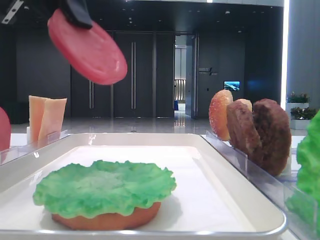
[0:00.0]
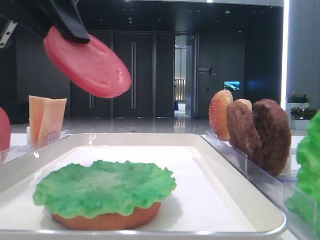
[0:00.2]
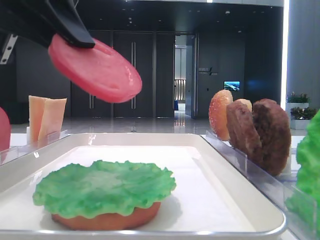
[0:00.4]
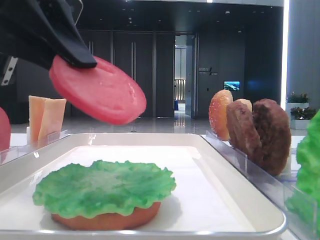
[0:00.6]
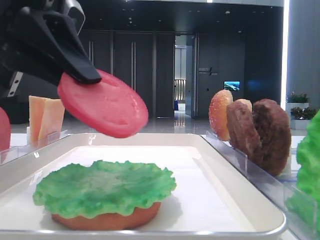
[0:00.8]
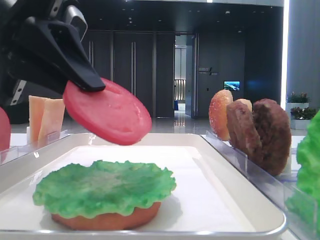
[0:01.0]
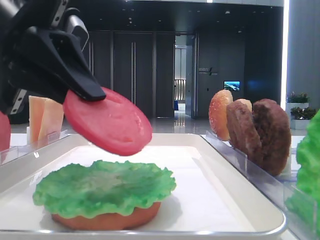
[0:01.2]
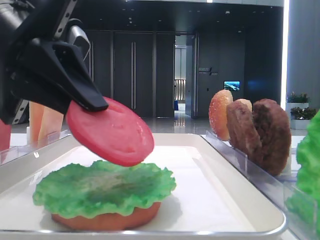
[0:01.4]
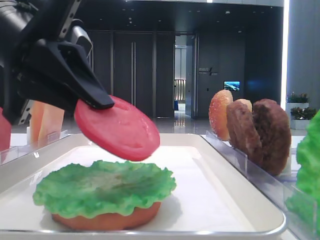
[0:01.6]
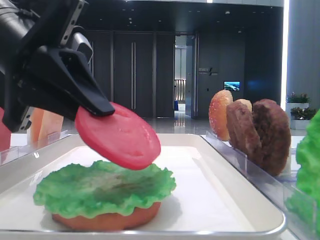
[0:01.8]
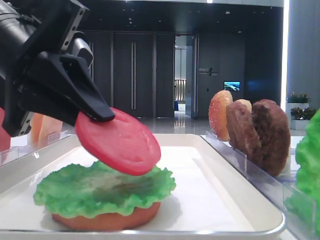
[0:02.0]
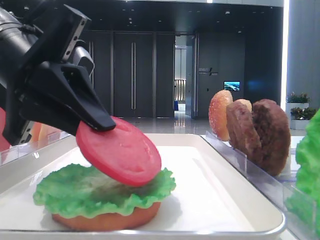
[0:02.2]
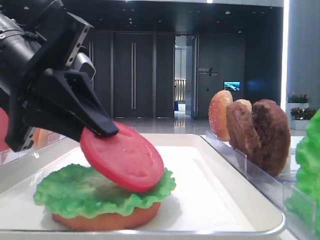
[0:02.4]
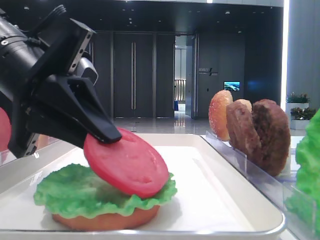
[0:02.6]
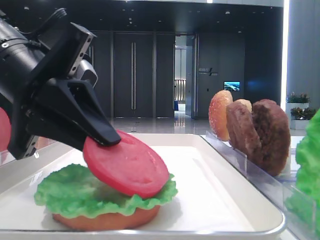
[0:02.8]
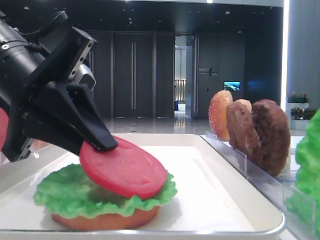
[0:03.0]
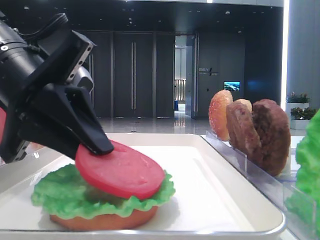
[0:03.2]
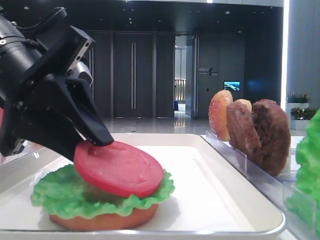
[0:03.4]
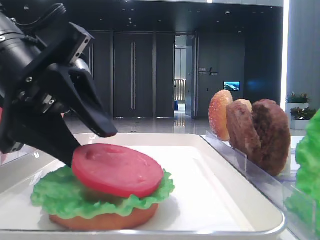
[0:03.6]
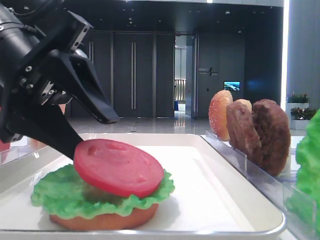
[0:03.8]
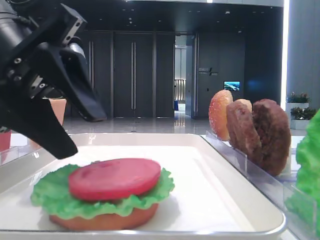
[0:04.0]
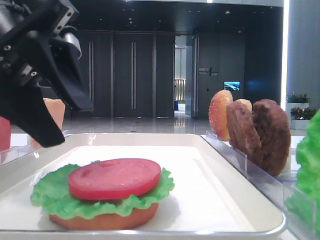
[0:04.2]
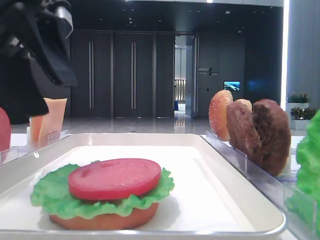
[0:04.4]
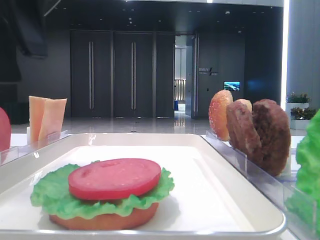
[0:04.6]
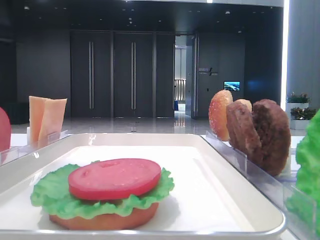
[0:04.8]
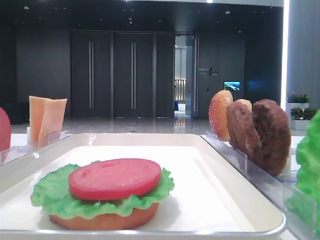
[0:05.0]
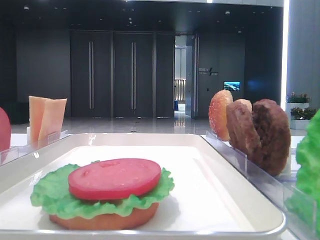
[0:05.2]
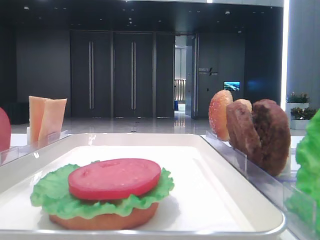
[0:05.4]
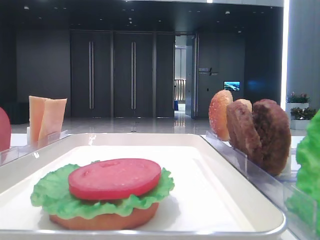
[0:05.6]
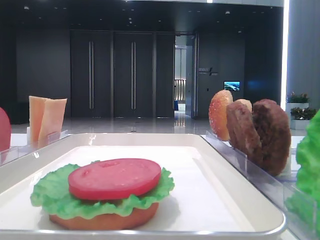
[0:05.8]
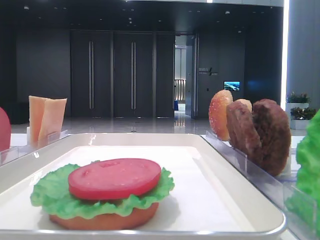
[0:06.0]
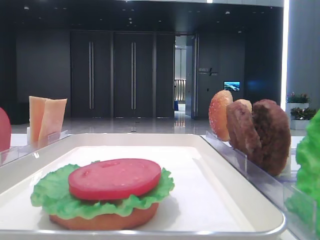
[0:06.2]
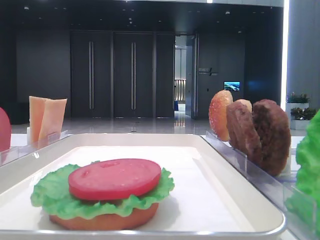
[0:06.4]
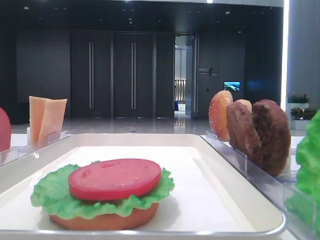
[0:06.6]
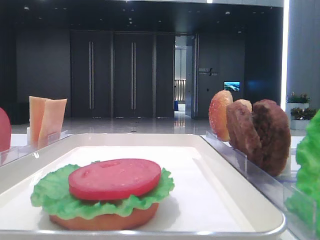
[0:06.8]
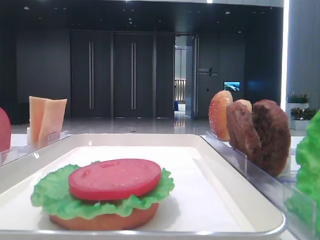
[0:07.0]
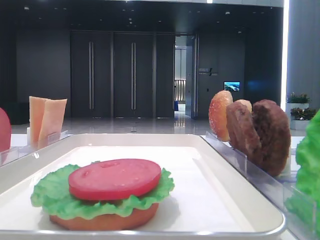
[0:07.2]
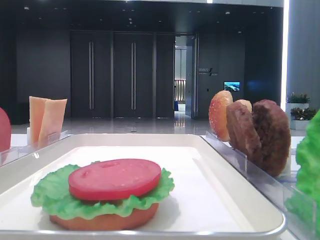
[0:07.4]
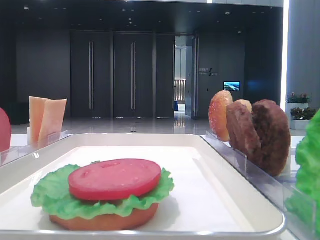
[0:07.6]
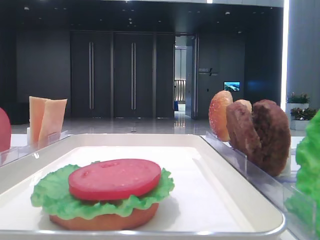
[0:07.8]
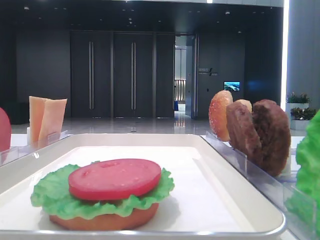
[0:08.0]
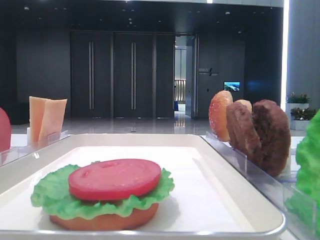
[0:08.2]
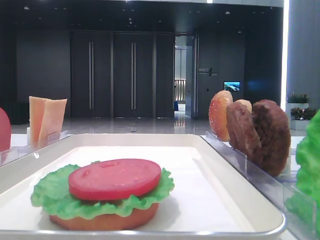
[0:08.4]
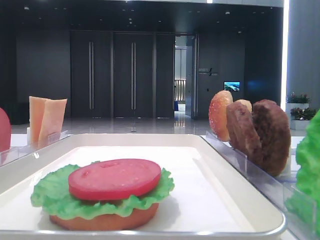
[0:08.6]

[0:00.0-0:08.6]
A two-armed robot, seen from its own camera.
Step, 0:00.0 to 0:03.8: Place the tomato slice on the lettuce leaf with the left hand.
0:00.0 to 0:01.4: The left gripper is displaced downward by roughly 10 cm.
0:01.4 to 0:02.8: The grippers stay close to where they were, moving slightly.
0:02.8 to 0:04.4: The left gripper travels upward by approximately 5 cm, and opens.
0:04.4 to 0:05.8: The left gripper moves to the left and upward, roughly 20 cm.

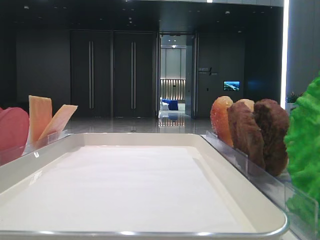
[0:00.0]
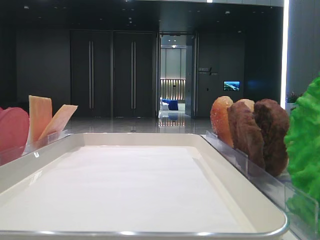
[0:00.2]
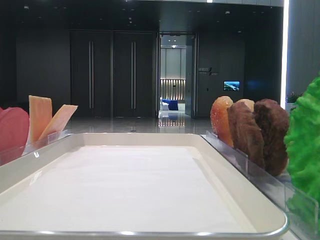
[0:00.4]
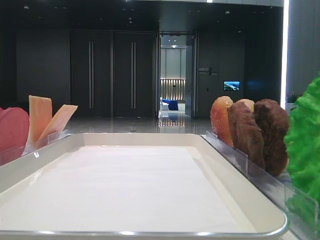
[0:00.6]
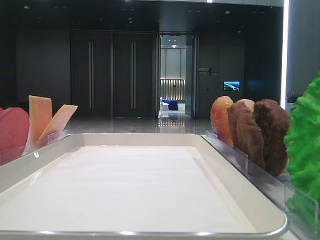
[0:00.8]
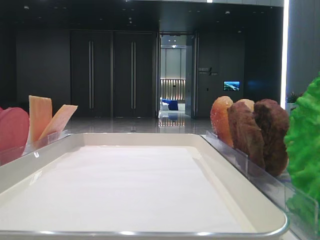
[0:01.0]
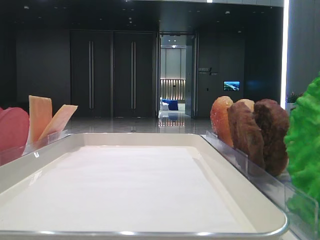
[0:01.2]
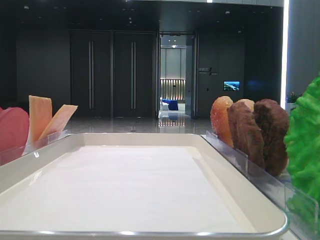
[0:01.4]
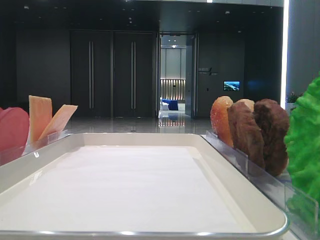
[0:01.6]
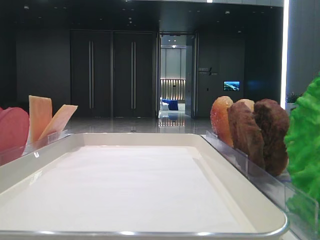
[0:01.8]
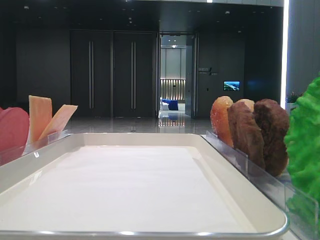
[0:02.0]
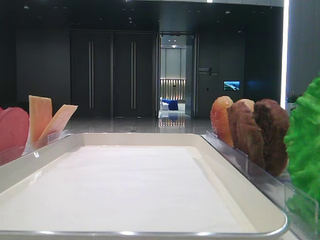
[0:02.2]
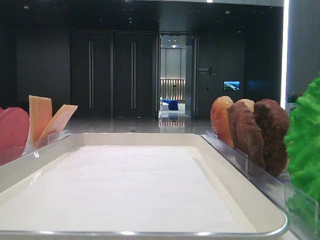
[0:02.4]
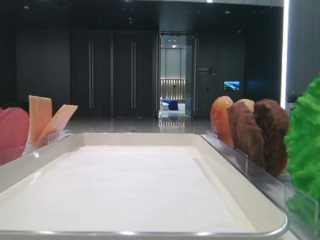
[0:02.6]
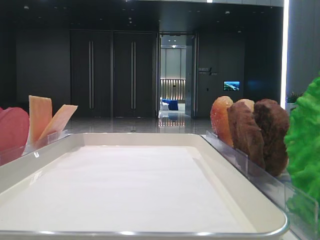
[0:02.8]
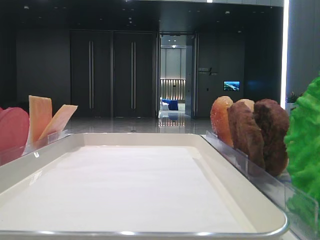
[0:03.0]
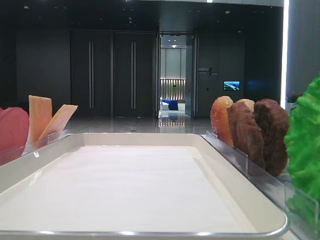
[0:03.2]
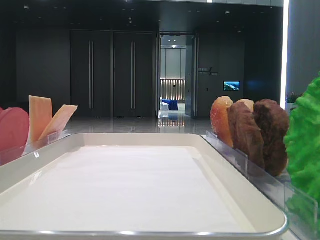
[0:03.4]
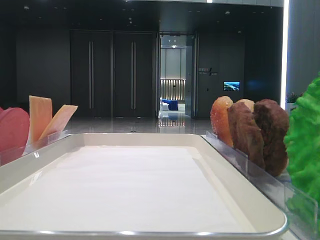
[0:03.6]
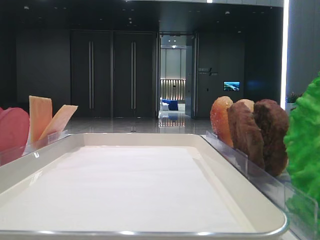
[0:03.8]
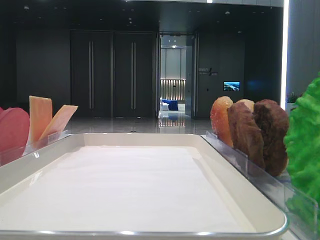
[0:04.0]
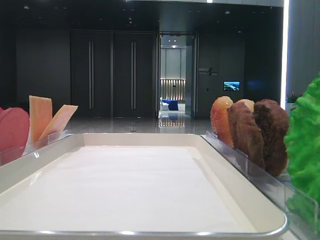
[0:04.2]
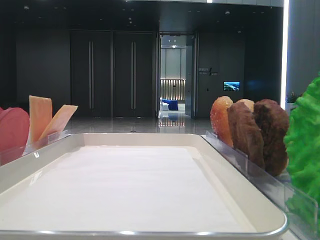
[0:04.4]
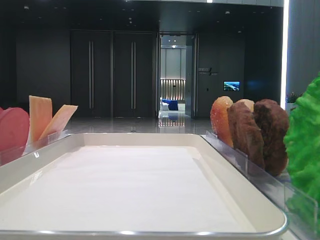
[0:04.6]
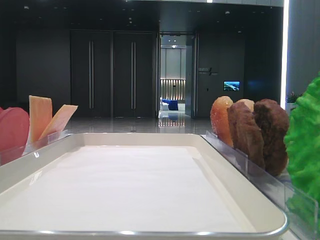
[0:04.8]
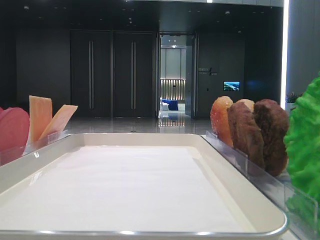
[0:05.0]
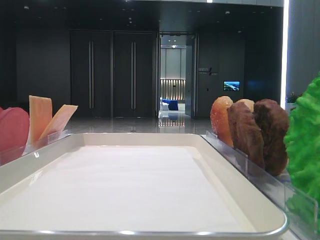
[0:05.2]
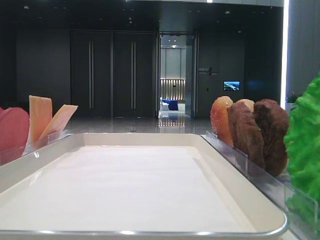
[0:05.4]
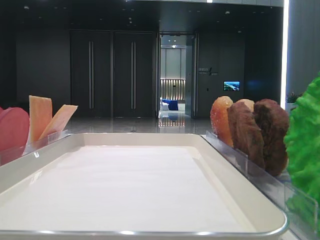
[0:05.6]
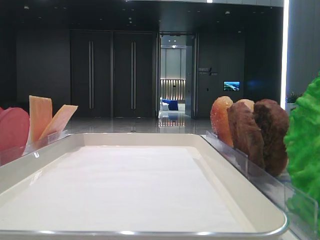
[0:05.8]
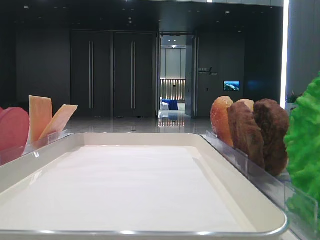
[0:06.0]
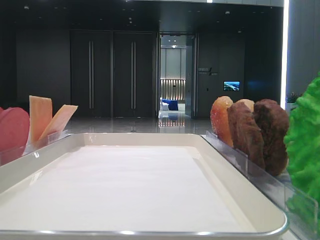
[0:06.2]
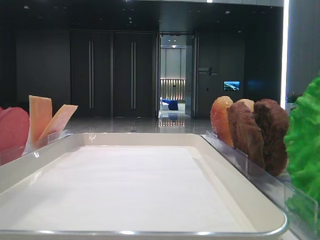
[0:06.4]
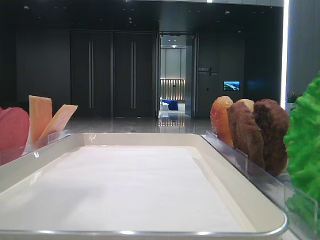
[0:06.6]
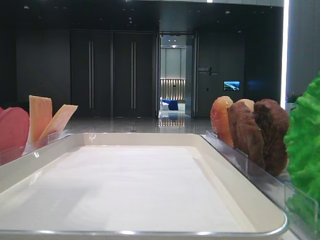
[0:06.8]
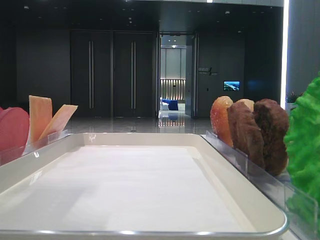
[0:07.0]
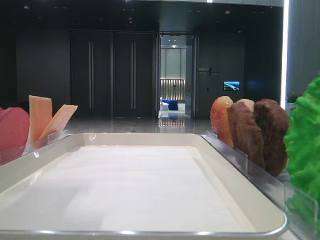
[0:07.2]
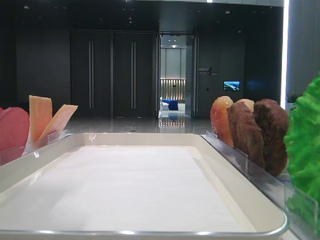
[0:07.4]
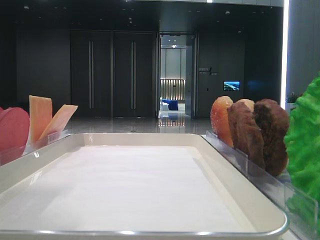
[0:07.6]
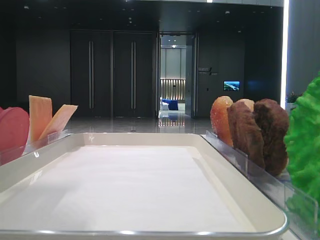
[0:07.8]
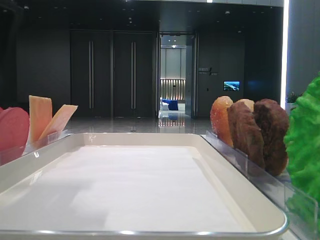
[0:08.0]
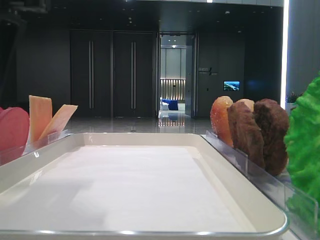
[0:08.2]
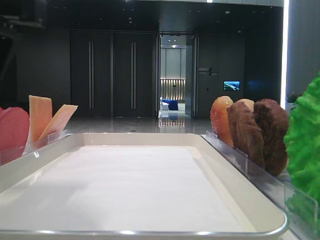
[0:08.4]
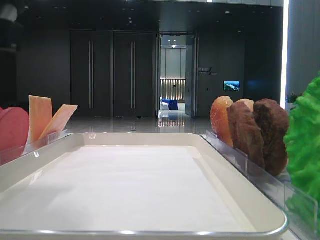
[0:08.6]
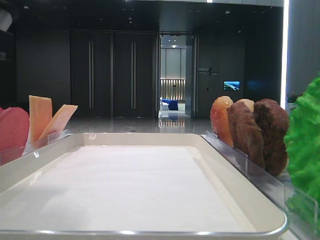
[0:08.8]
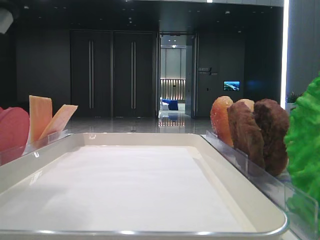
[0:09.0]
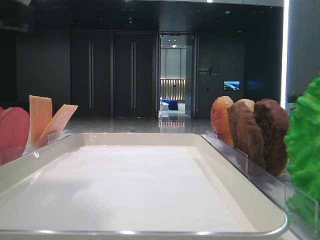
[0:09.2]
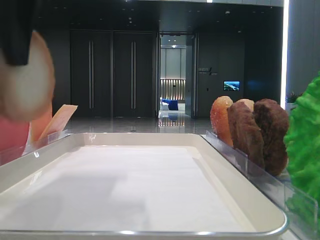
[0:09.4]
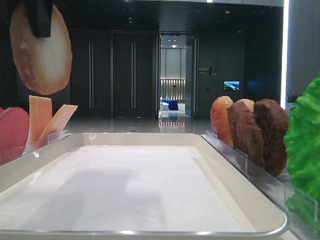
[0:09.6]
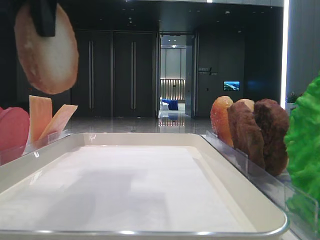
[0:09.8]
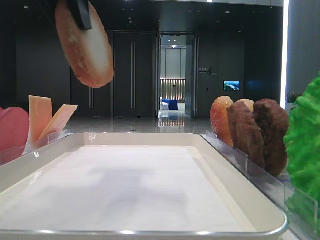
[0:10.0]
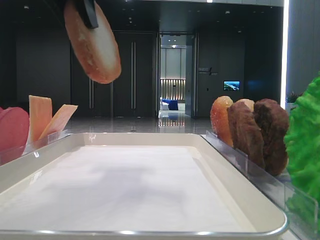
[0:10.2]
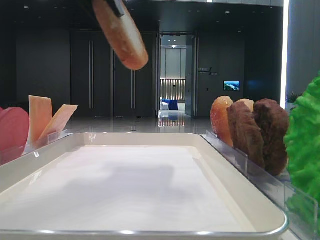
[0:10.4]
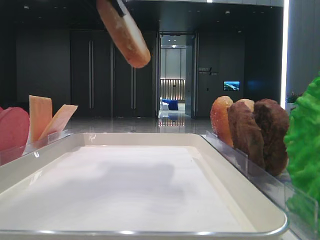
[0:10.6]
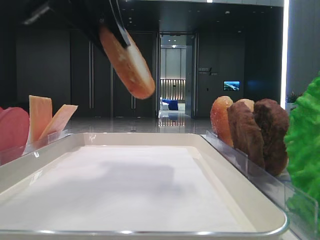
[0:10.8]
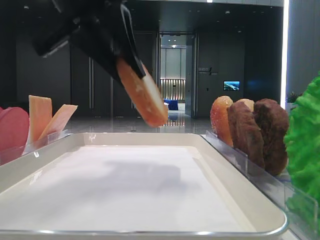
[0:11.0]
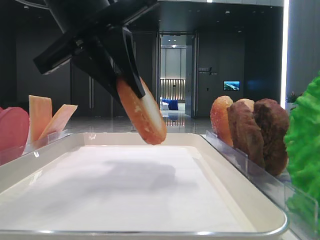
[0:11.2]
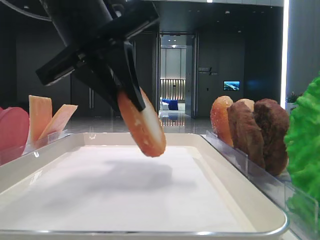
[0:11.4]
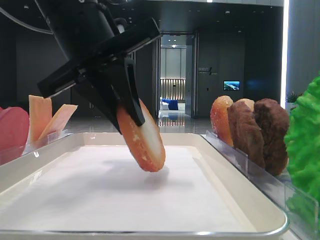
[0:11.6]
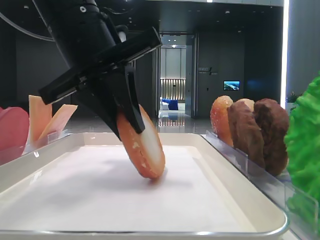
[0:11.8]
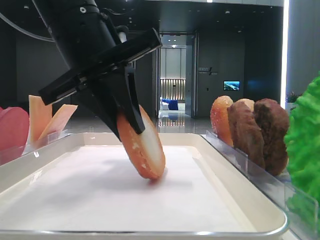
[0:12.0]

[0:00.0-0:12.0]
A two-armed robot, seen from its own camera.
Step, 0:00.0 to 0:08.8: Pick up the bottom bread with the left hand.
0:01.6 to 0:03.0: Both grippers stay put.
0:06.0 to 0:07.6: The left gripper moves to the right, approximately 10 cm, and opens.
0:09.0 to 0:10.4: The left gripper moves upward, forward and to the right, approximately 15 cm.
0:10.4 to 0:12.0: The left gripper travels downward by some 10 cm.

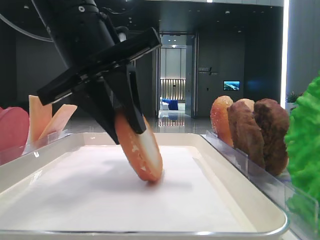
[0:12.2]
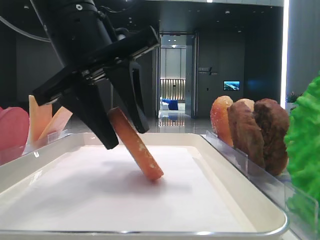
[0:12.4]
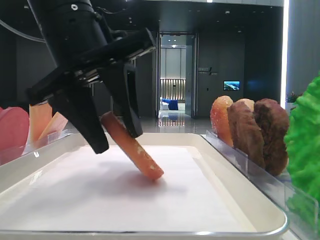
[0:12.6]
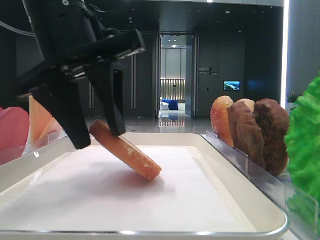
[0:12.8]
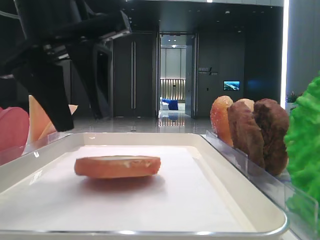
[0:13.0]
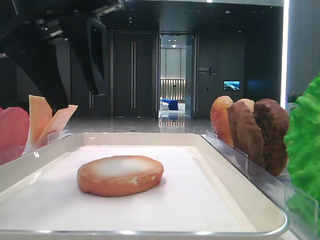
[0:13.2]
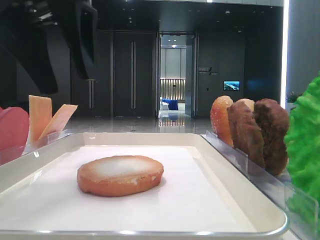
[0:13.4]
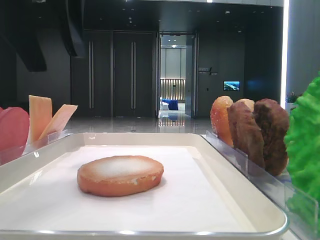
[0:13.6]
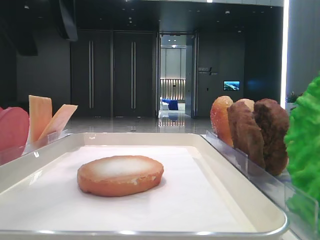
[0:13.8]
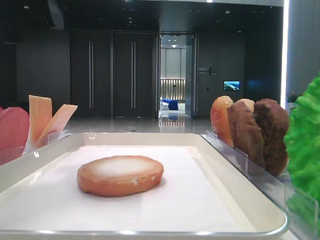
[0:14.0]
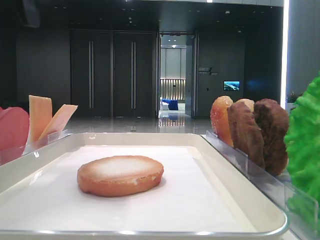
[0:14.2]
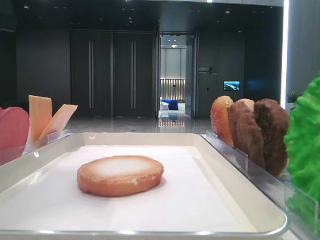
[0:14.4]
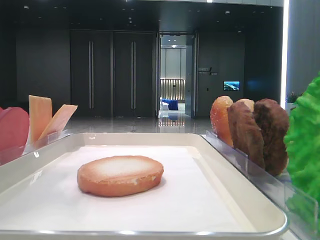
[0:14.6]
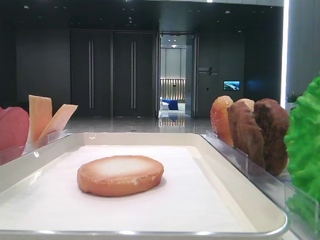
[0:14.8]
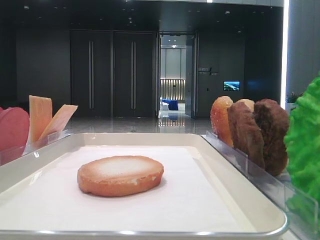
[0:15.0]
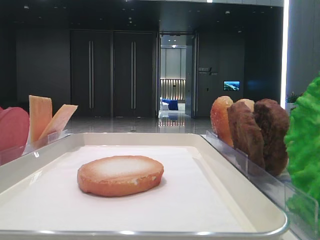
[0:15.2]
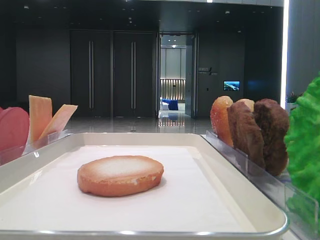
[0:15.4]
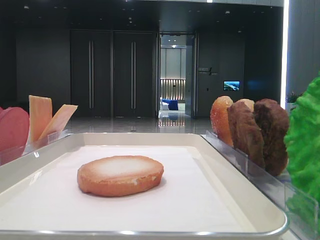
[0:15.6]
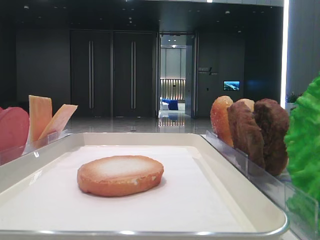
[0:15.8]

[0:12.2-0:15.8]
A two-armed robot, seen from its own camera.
0:12.2 to 0:14.0: The left gripper goes approximately 15 cm upward and to the left.
0:14.0 to 0:15.8: The left gripper travels to the left by some 15 cm.
